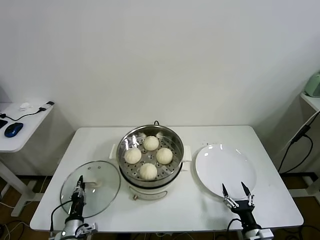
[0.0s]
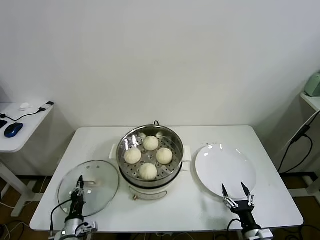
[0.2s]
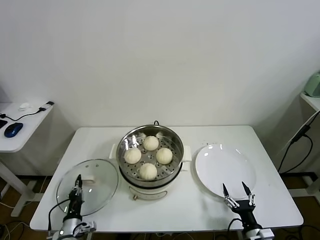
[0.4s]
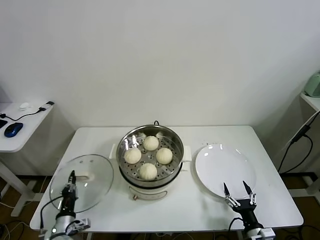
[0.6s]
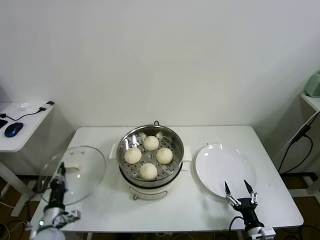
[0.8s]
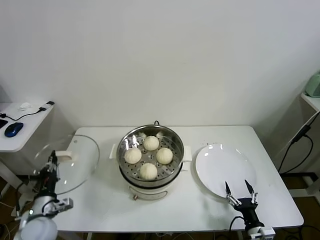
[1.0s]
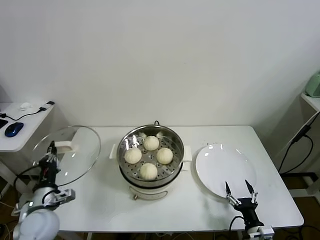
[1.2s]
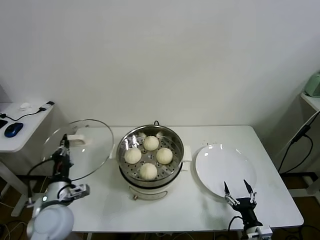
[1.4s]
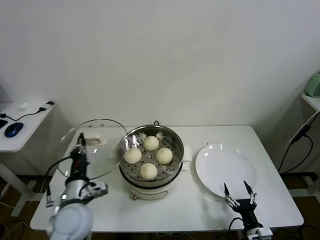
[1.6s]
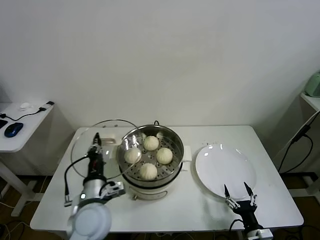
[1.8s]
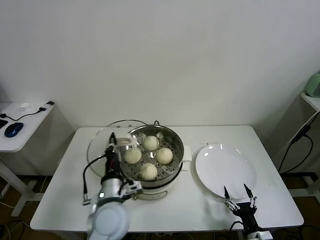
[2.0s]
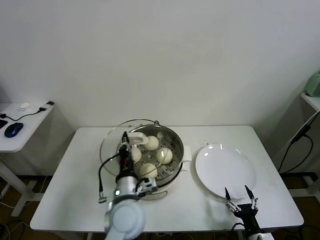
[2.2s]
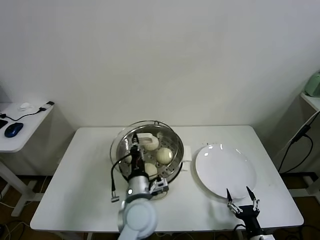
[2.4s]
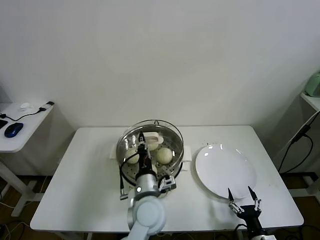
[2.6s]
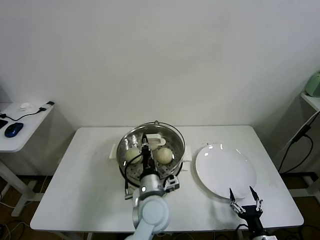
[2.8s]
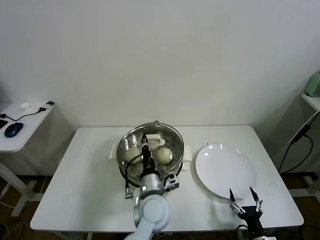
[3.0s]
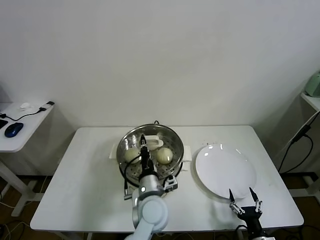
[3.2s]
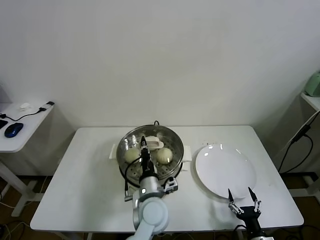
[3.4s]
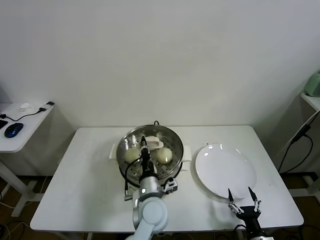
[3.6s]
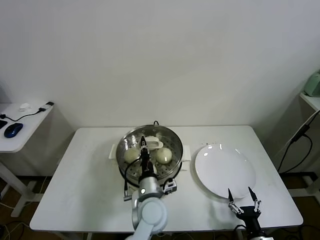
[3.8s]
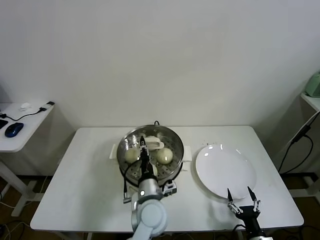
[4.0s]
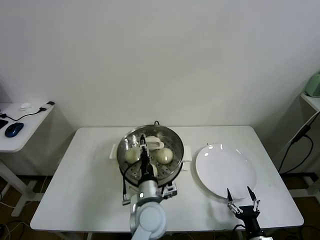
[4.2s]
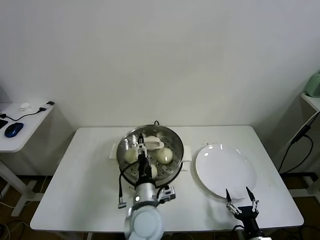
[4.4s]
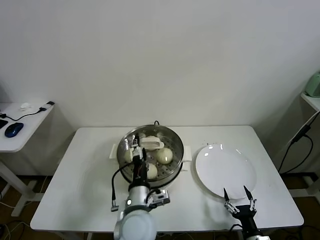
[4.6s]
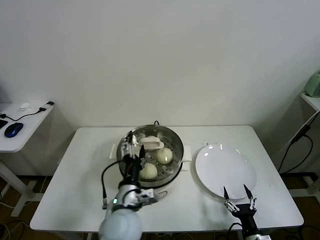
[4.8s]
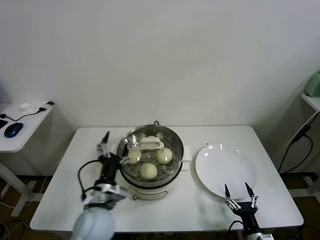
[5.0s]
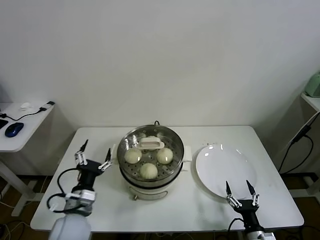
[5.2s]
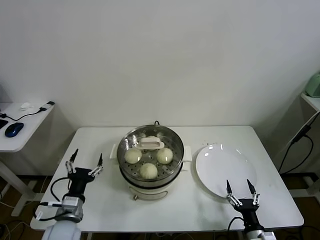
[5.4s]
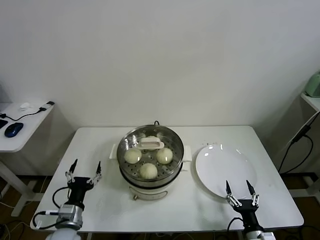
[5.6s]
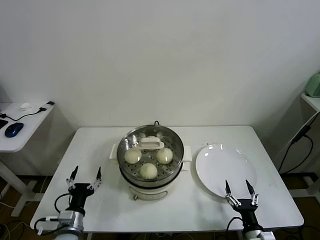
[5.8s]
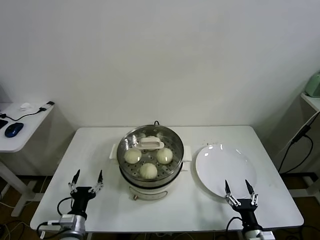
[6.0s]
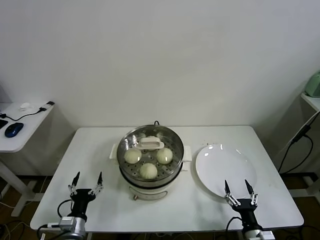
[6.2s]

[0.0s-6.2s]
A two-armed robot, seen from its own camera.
Task of the whole recording: take steamed baozi put them in steamer.
Step, 0.4s to 4.4s: Place the pot lid on the steamer with left gripper.
0.0s to 1.6s: The left gripper goes some 25 cm upward, and closes up.
1.6s to 3.2s: The left gripper goes approximately 25 cm to the right.
3.2s to 4.6s: The left gripper moves approximately 5 cm, and opens its fingers.
4.6s to 6.2s: The left gripper goes some 25 cm to the left and downward.

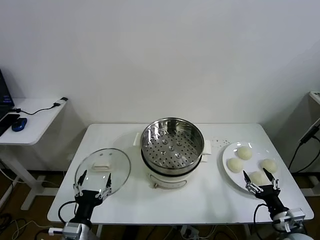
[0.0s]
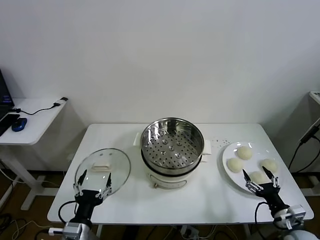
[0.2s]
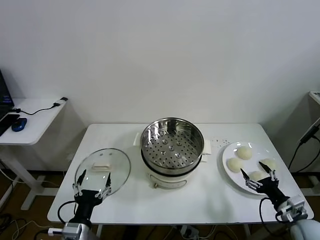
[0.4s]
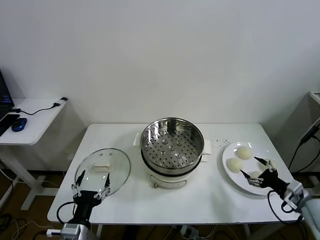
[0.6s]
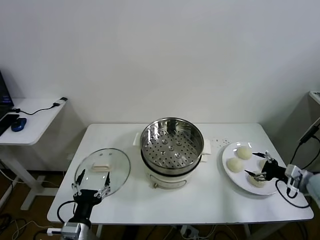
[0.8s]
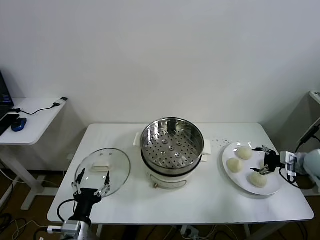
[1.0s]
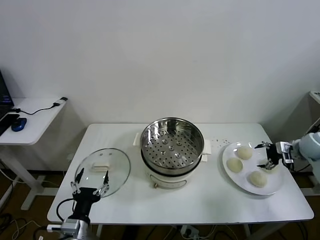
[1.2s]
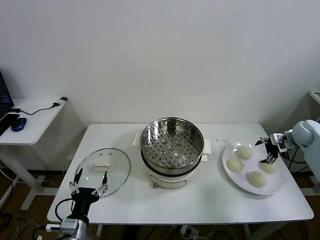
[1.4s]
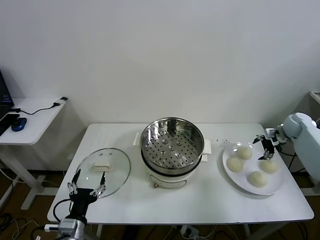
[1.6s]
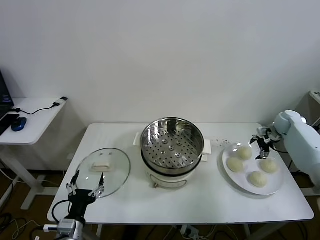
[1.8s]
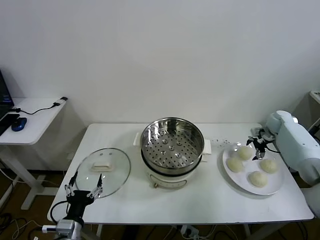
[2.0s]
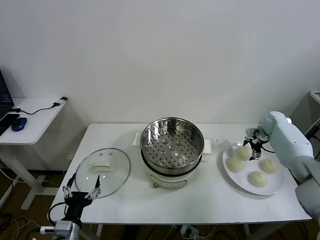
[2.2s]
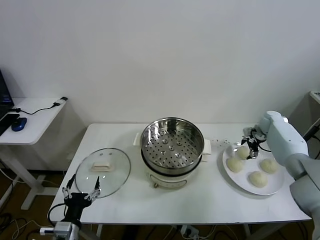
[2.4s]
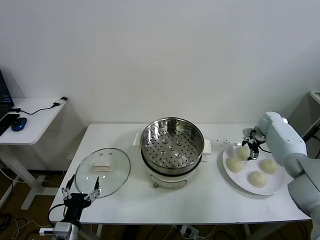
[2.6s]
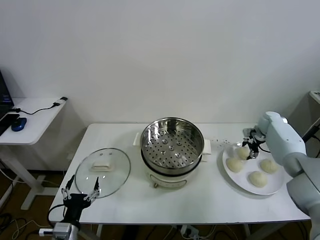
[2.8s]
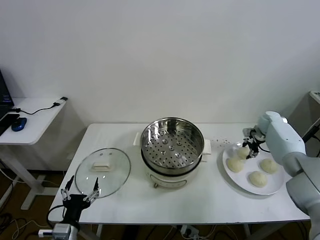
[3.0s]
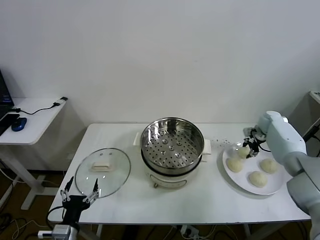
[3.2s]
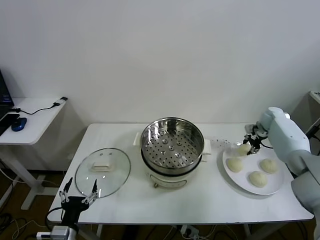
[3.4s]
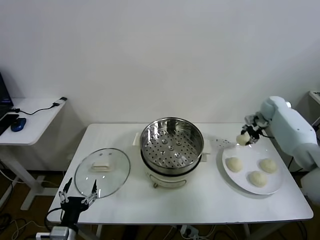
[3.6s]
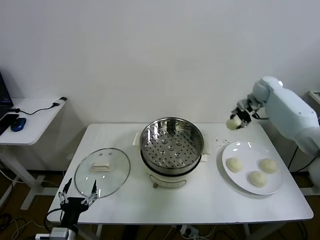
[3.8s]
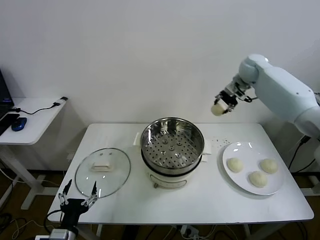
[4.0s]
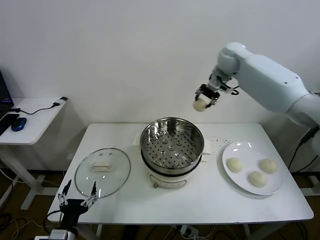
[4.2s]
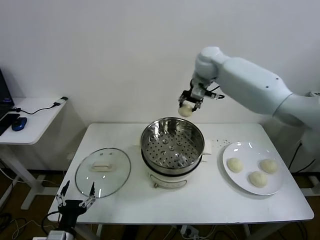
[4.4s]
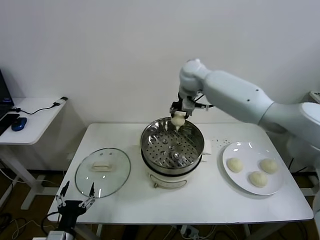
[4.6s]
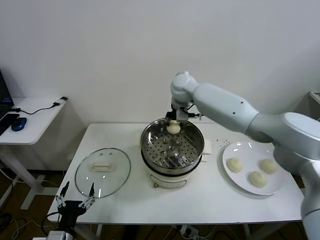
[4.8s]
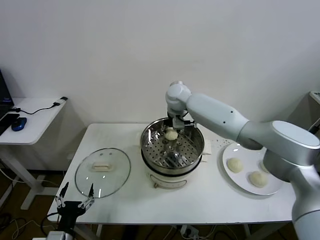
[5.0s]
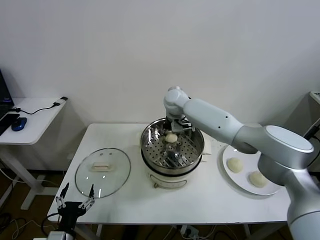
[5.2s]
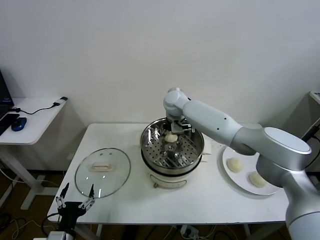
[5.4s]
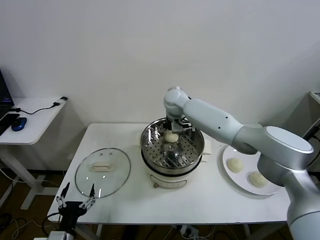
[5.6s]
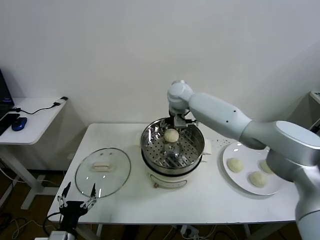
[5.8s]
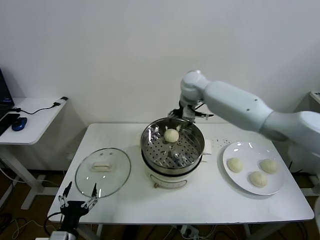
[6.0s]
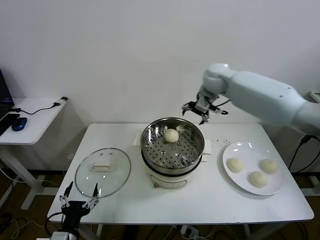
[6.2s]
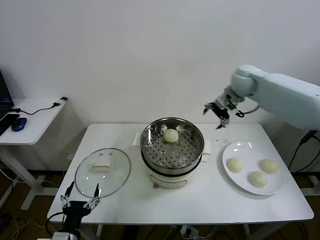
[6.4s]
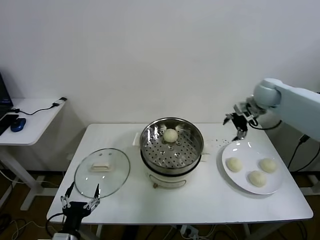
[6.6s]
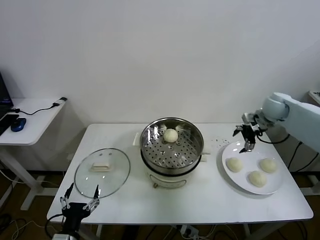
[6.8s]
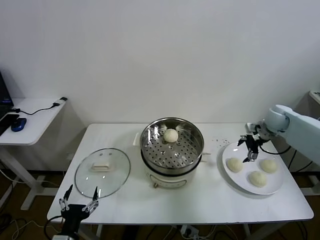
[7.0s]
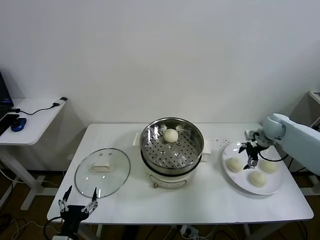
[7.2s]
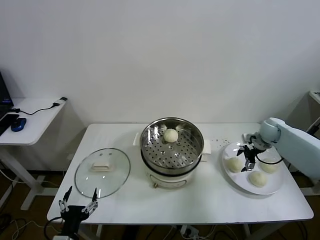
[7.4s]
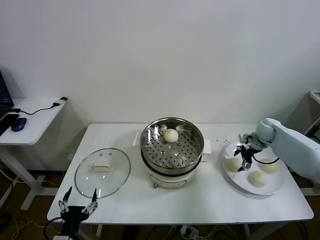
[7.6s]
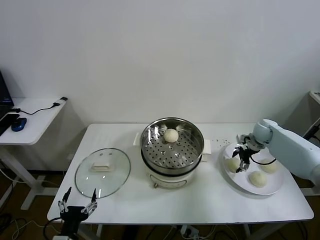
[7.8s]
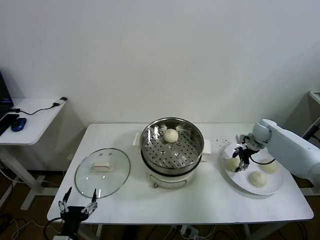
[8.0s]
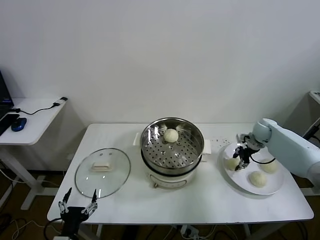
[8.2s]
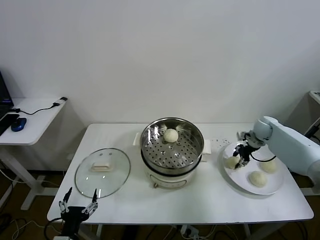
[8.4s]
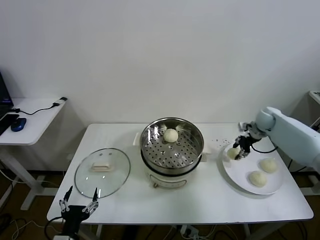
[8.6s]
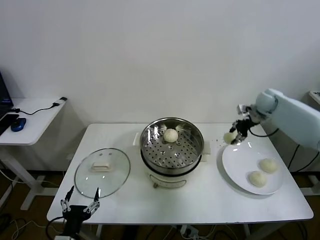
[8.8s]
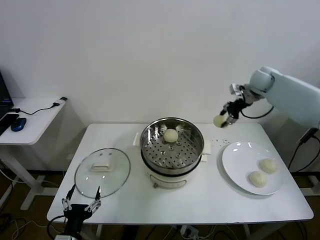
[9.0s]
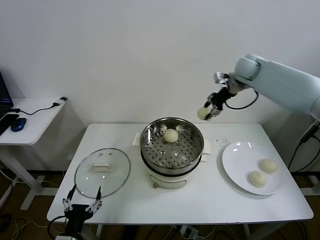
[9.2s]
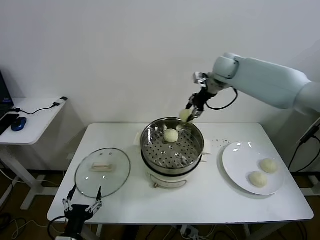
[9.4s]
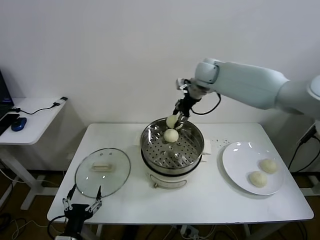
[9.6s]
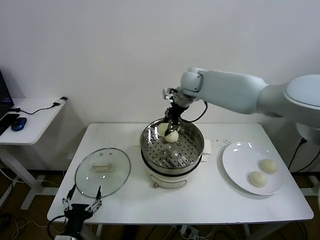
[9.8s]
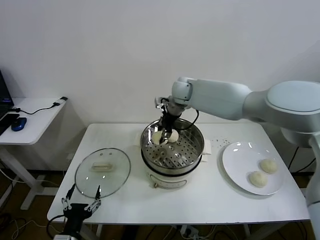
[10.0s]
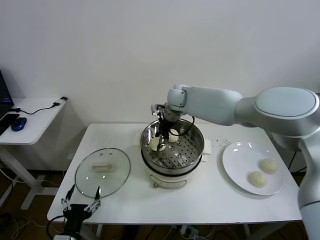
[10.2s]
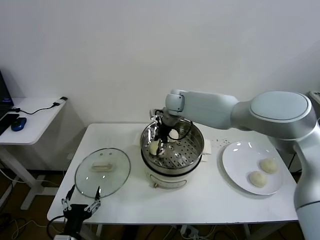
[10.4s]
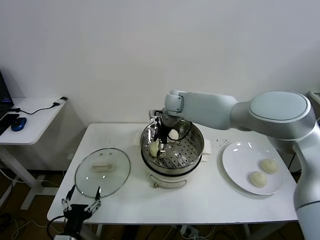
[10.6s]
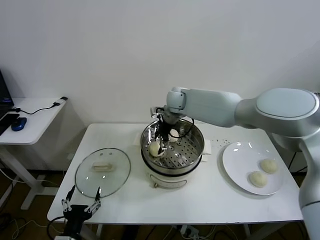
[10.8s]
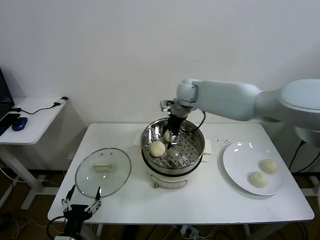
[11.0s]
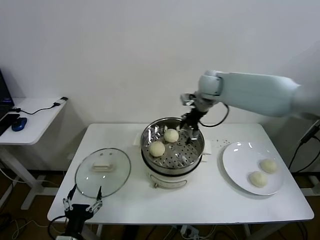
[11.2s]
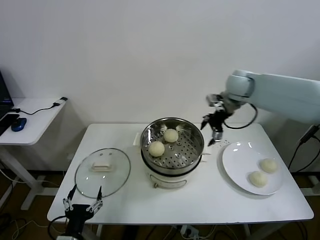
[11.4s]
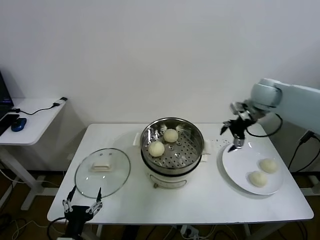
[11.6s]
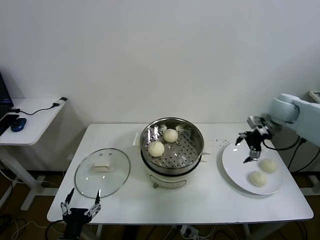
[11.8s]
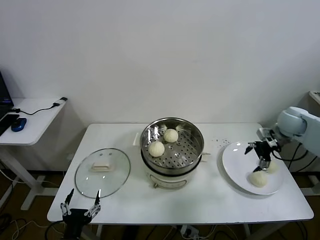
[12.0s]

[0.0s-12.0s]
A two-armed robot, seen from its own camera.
Task of the whole recording: take steamed baozi put them in steamer.
Step, 0.0s to 3.0s: Grasp the baozi in the plate with right gripper.
Step, 3.2s to 5.8s: Place the baozi on the steamer with right gripper.
Step, 6.0s to 8.0s: Grasp the baozi in the plate with right gripper.
Step, 8.2s to 10.8s: Place the baozi on the steamer with right gripper.
1.6s to 3.0s: The right gripper ends up roughly 5 cm from where it was, and closes its fingers.
3.0s to 4.4s: The right gripper moves to the left and upward, roughly 40 cm.
4.4s to 6.0s: The right gripper goes approximately 5 cm to the right, and opens.
6.0s to 7.6s: The right gripper moves to the right and downward, approximately 35 cm.
7.6s to 9.0s: The right gripper travels upward and to the left by approximately 25 cm, and closes up.
9.0s to 10.4s: The right gripper moves to the left and downward, some 30 cm, and opens.
10.4s to 12.0s: The right gripper goes some 40 cm to the right, and opens its fingers.

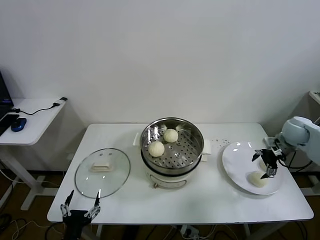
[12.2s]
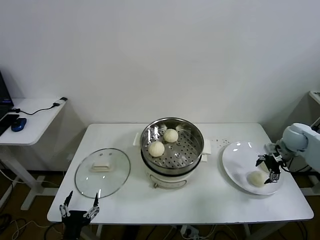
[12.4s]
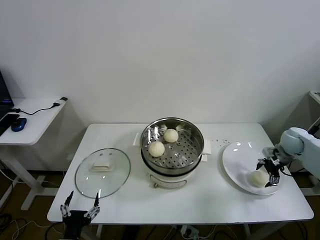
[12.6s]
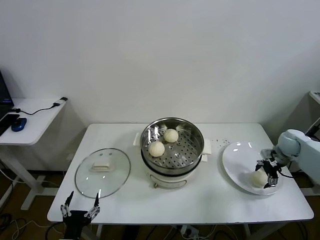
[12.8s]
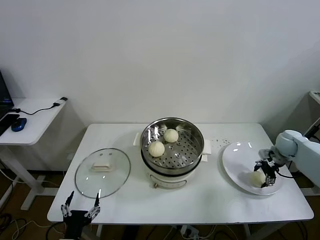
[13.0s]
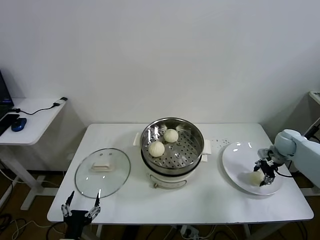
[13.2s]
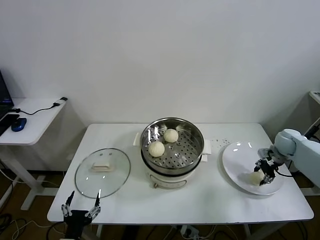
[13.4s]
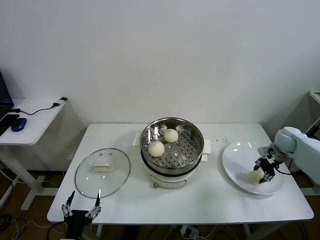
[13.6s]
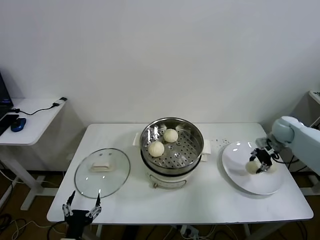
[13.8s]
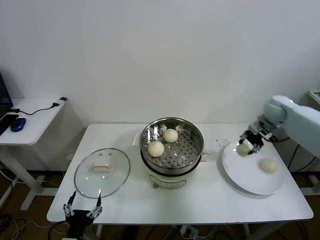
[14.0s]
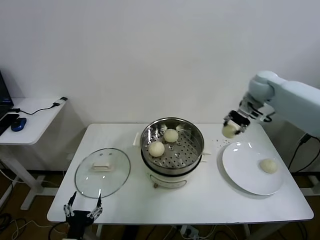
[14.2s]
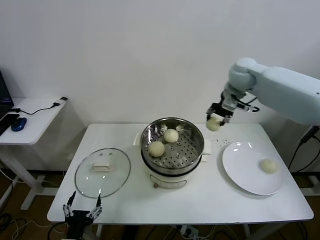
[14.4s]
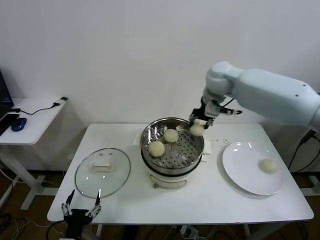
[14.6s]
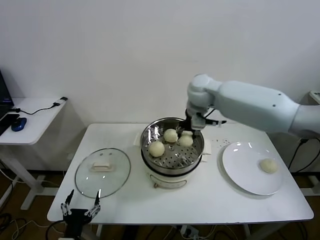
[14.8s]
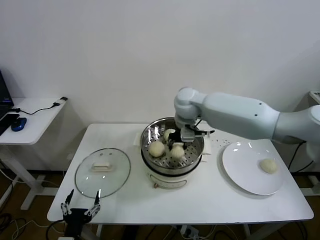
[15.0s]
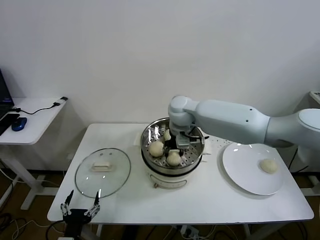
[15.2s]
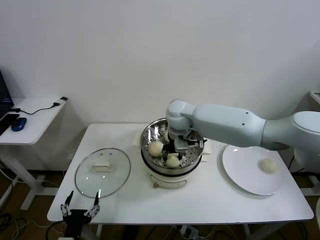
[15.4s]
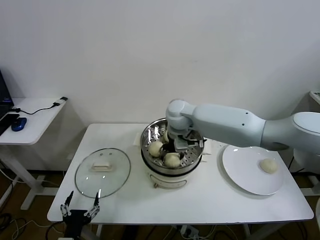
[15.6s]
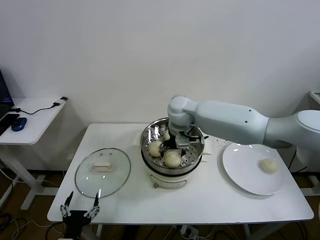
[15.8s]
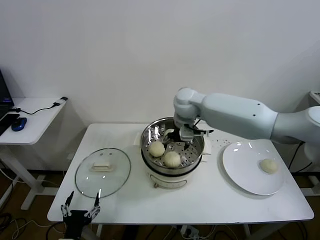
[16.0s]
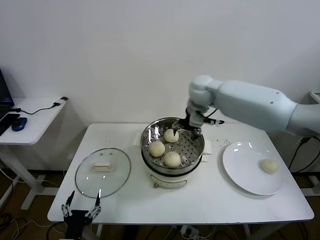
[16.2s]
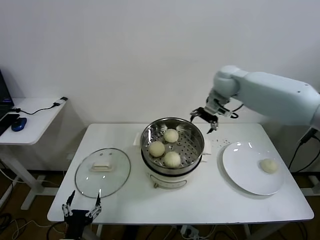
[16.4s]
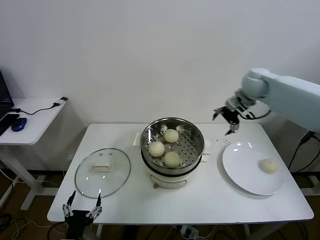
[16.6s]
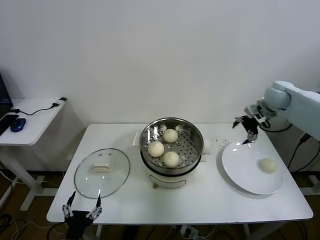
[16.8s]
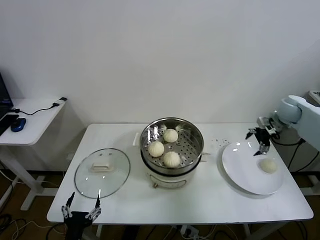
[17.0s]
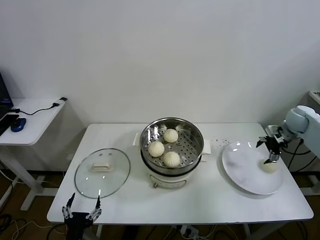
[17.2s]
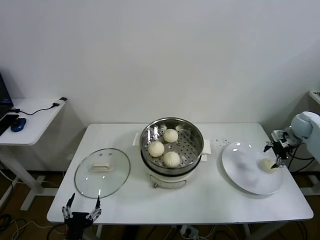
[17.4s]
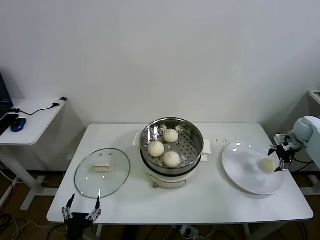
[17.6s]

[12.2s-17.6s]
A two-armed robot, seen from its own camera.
Task of the whole recording: take steamed baozi put them in steamer.
Step, 13.4s to 15.8s: Place the baozi on the steamer with right gripper.
12.2s to 13.6s: The right gripper closes up.
13.6s to 15.0s: The right gripper moves to the left, roughly 40 cm.
15.0s to 16.2s: The right gripper shifts roughly 10 cm to the right and upward, and opens up.
16.2s to 17.6s: The right gripper heads to the right and downward, covering roughly 40 cm.
